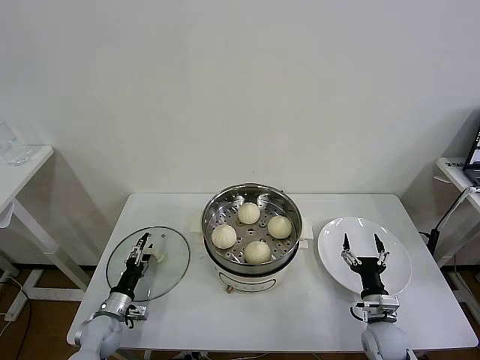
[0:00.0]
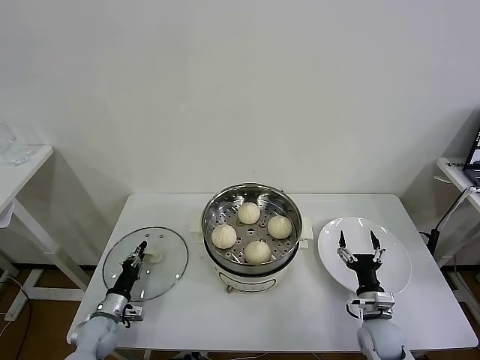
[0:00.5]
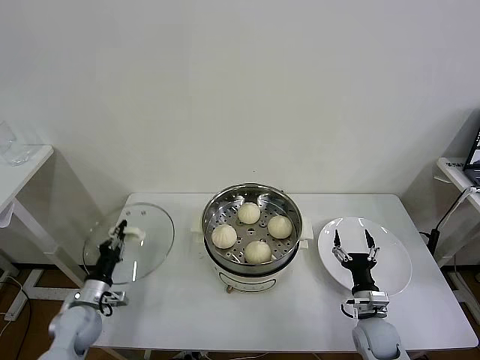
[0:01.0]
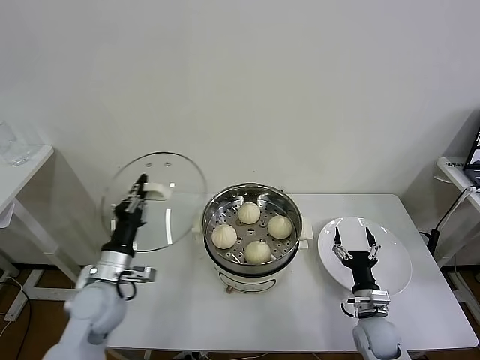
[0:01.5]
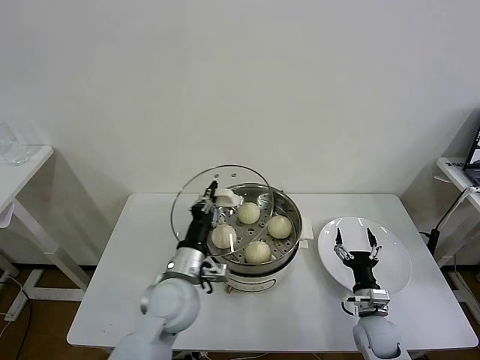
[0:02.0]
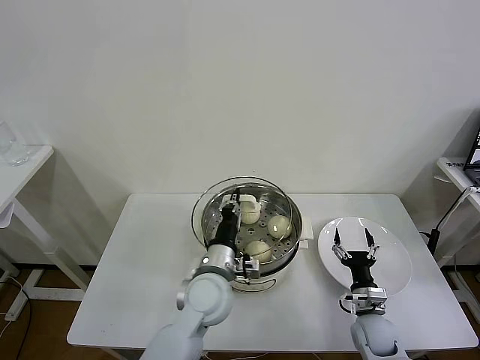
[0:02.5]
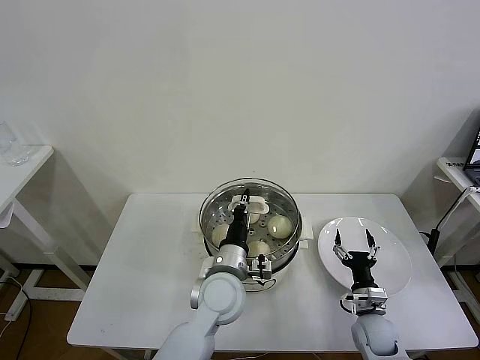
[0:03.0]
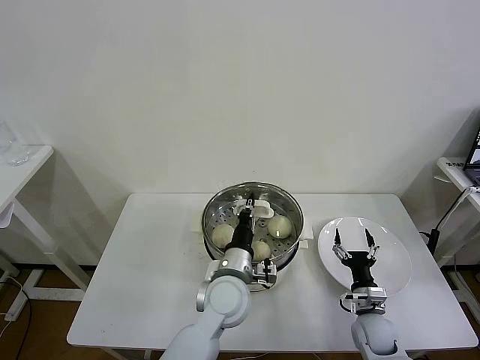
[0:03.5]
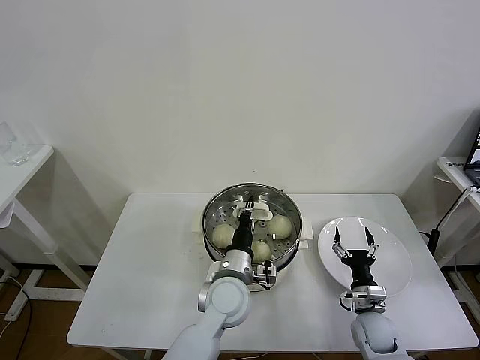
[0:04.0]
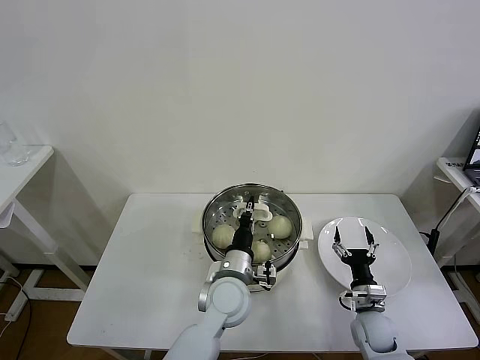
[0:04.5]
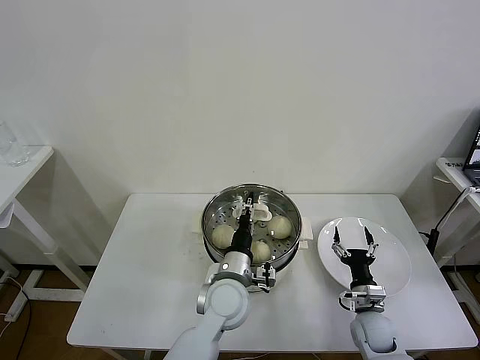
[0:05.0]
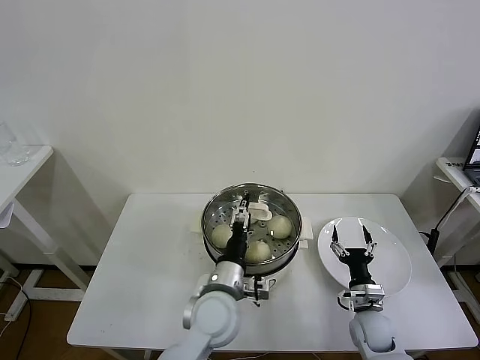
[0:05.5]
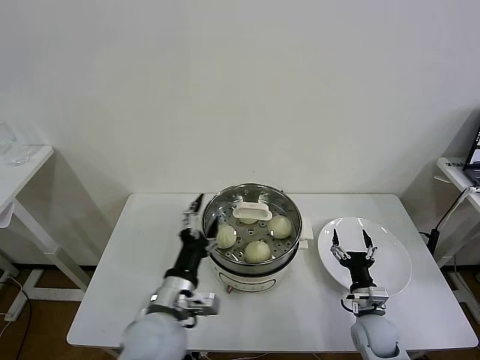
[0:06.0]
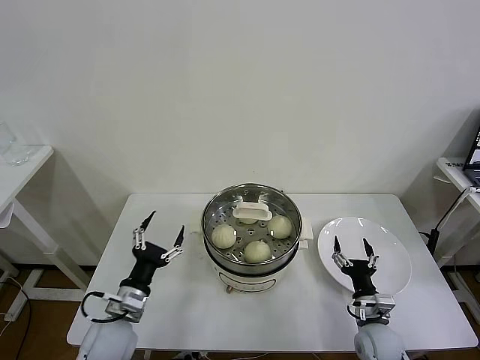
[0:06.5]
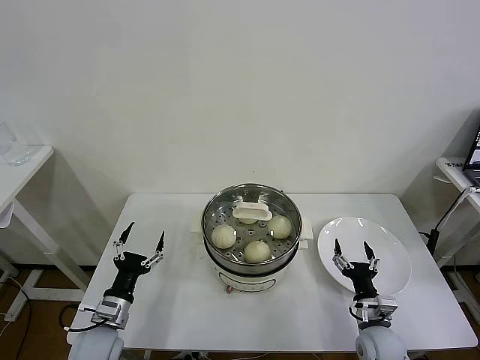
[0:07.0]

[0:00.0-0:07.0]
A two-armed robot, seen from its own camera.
Task of the whole recording: take steamed baozi put them in steamer then cover it.
Step, 0:01.0 to 0:05.5: Place the pot lid on the steamer with left gripper.
0:00.0 to 0:02.0: The left gripper heads upward and to the right, covering about 30 cm, and closes up.
0:02.0 to 0:03.5: The left gripper is displaced to the right by some 10 cm.
0:03.5 to 0:05.0: The left gripper opens.
0:05.0 to 0:07.0: The left gripper is displaced to the left by approximately 25 cm, and opens its fingers.
